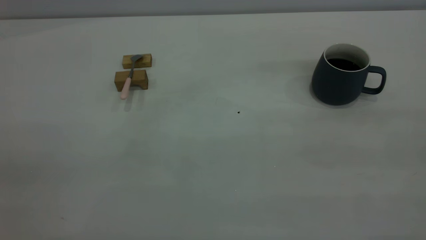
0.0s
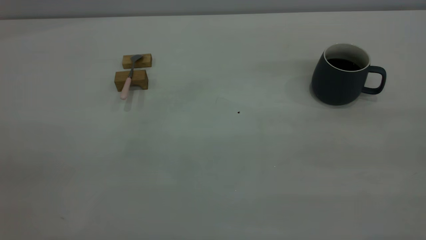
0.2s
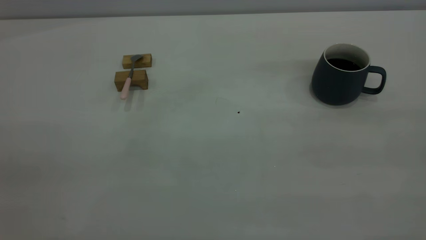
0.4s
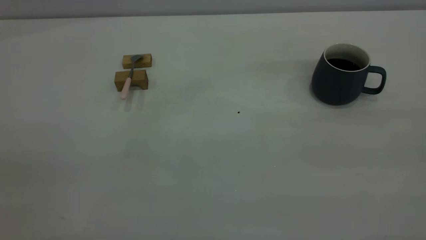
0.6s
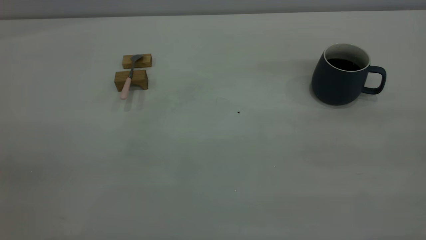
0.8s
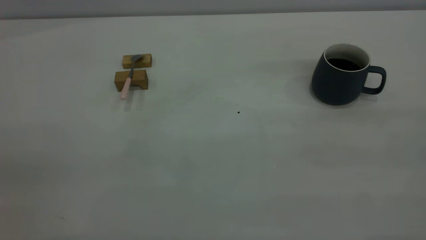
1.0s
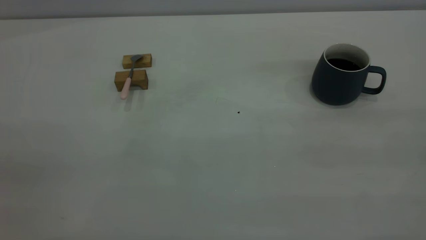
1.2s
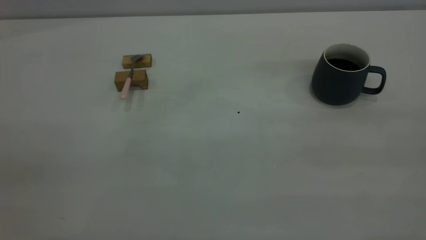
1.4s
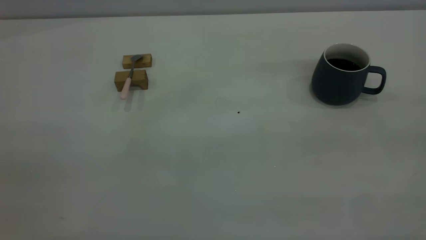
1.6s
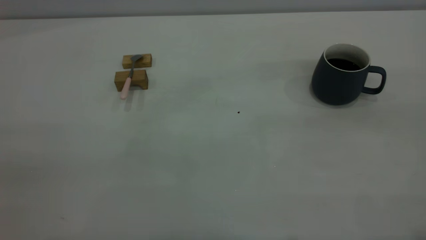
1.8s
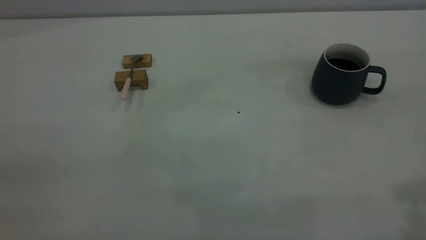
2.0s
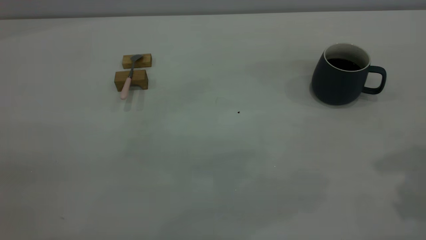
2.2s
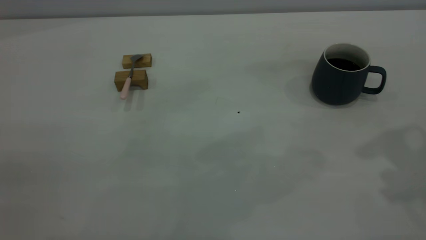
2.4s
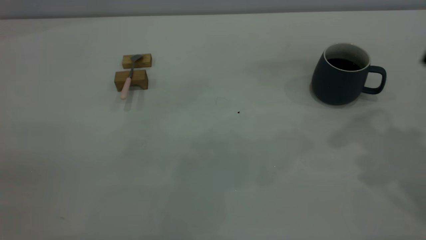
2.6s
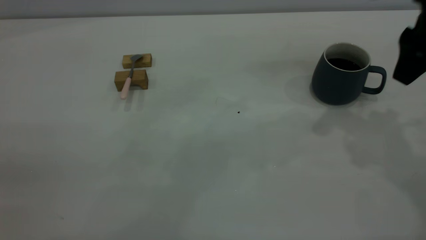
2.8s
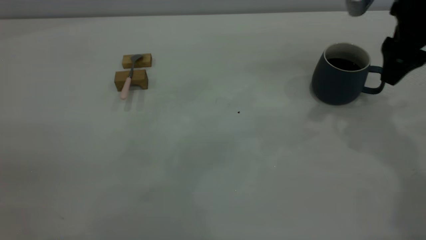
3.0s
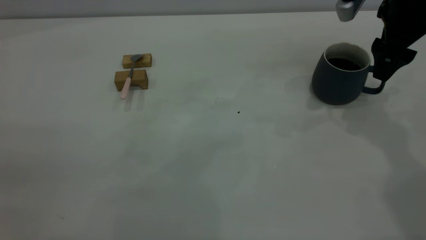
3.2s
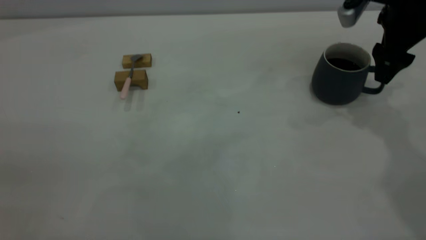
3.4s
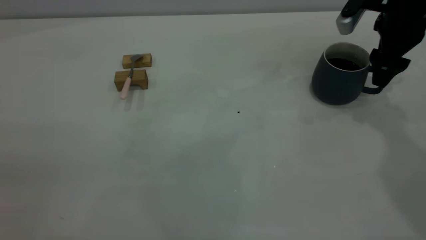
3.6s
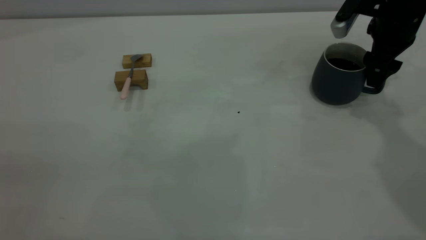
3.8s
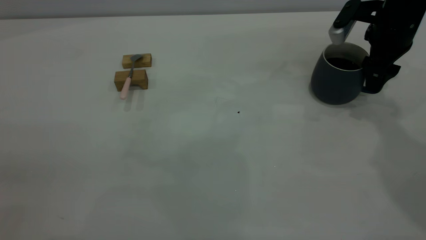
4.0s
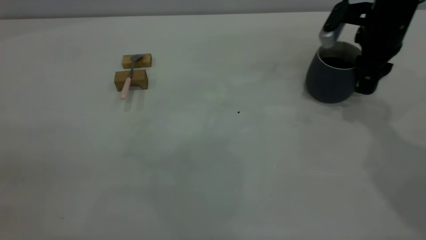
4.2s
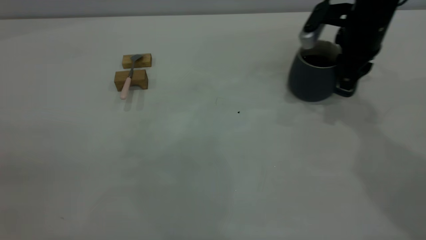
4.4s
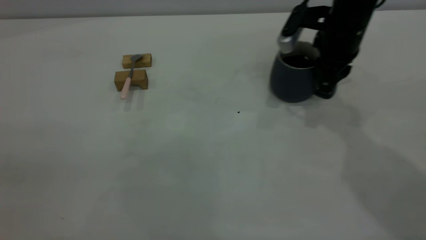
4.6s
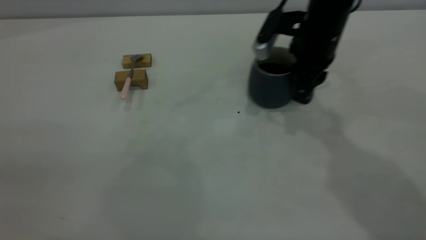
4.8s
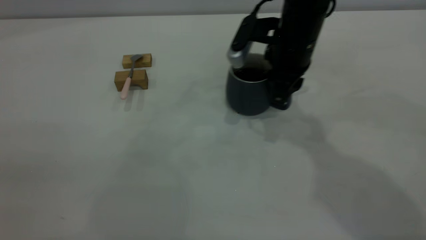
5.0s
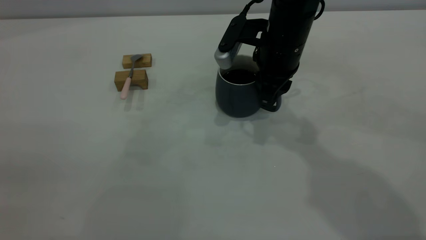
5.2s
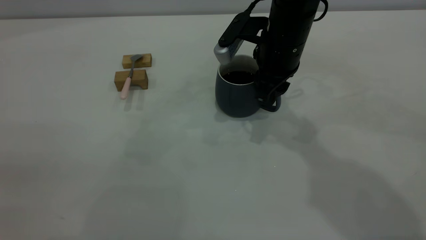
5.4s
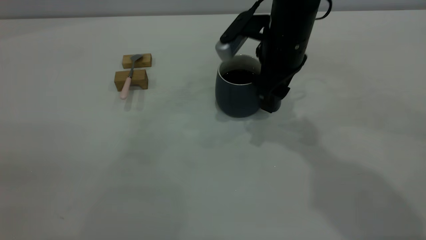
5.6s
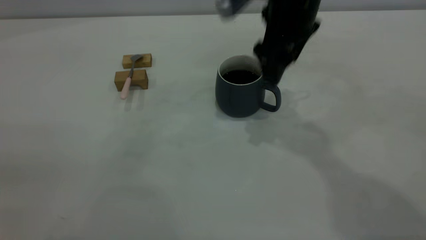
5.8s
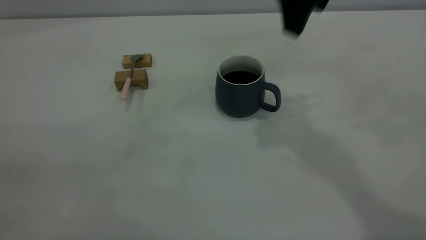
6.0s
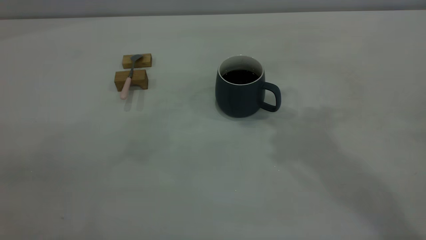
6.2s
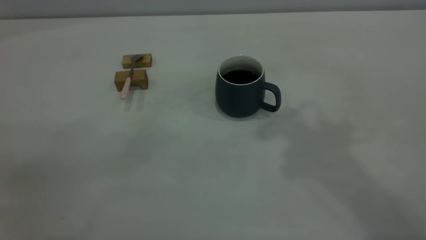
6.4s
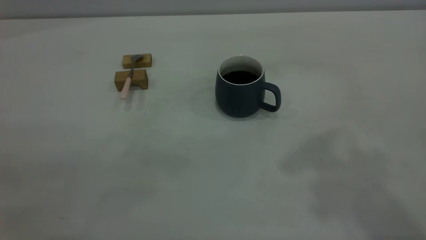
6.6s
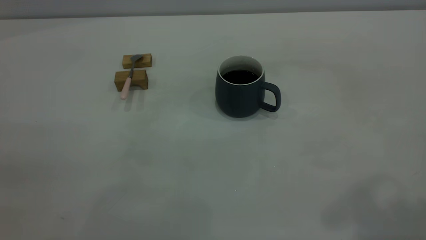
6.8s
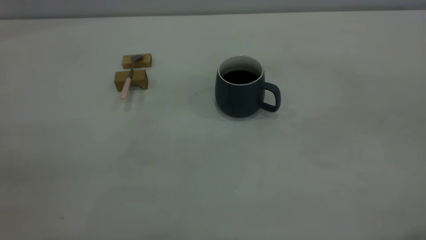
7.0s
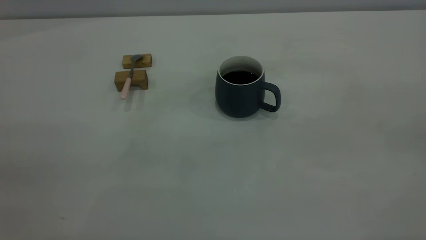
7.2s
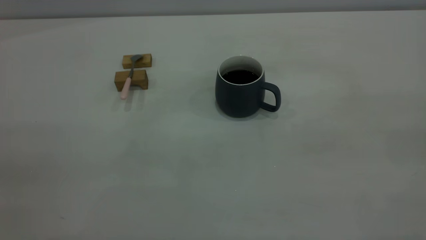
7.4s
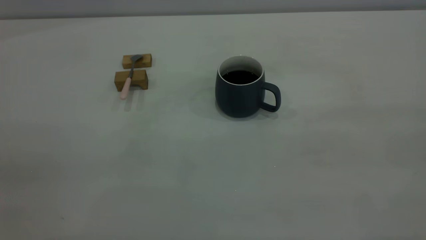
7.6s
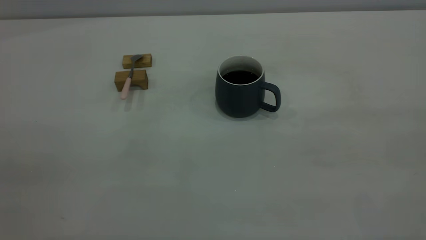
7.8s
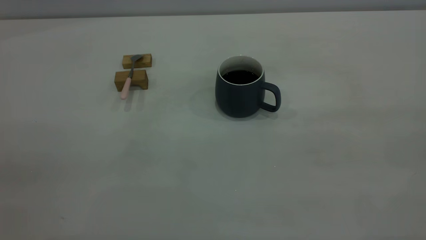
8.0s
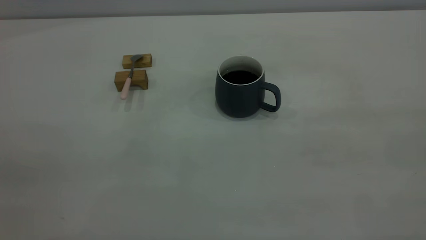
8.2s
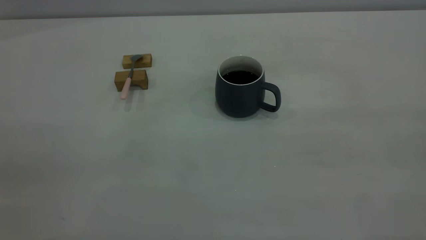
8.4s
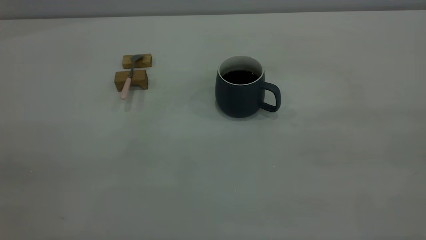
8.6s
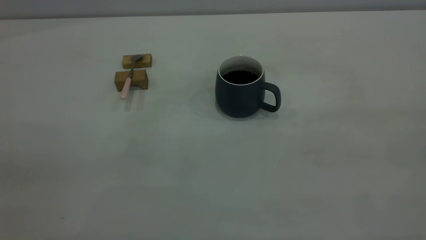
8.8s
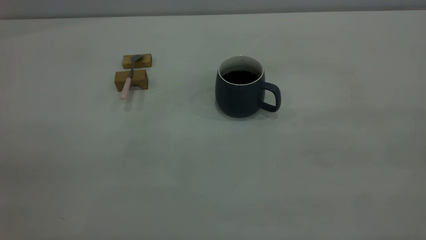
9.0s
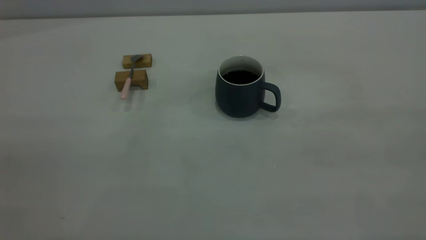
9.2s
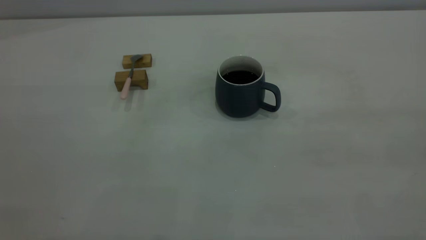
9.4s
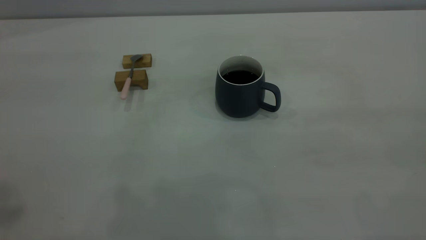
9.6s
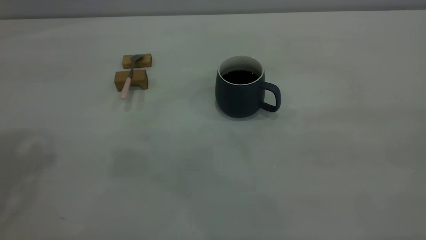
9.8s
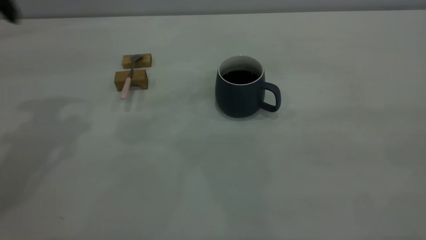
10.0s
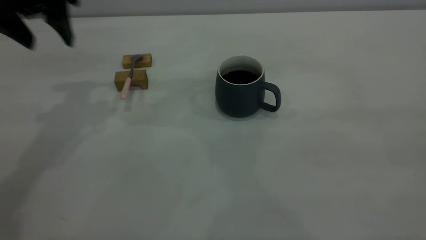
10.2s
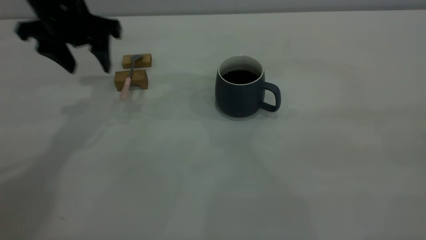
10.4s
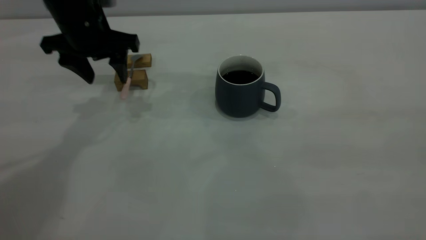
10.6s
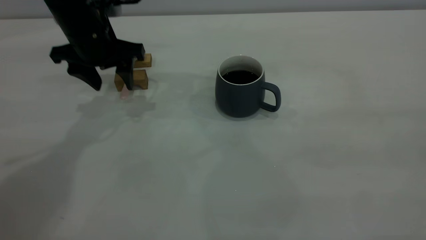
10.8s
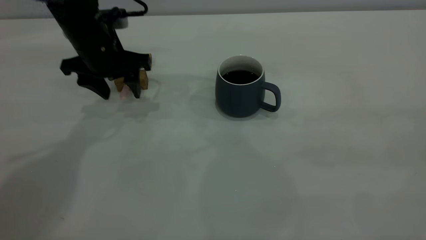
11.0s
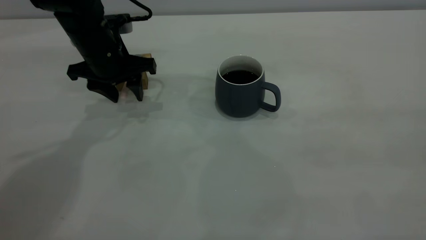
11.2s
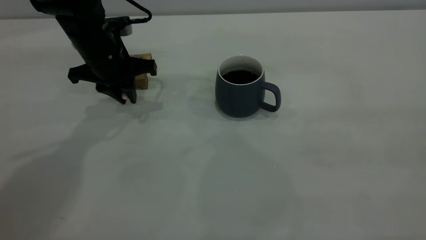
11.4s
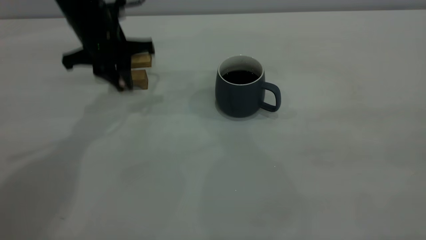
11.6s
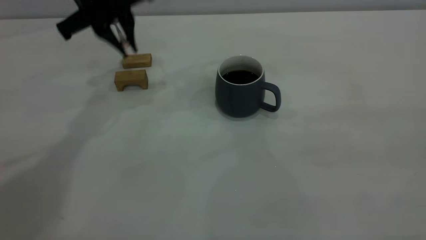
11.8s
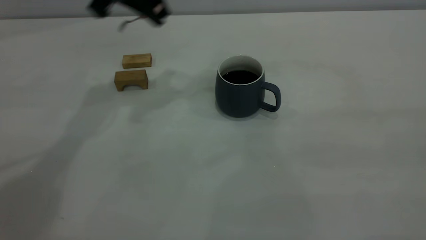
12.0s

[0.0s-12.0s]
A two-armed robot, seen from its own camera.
Step, 0.0s to 5.8s: Move the cup with coffee to the center of view.
Step, 6.0s to 11.6s: Pick up the spoon.
1.6s to 3.0s: The right gripper shifts roughly 40 cm forward and downward, and opens its fingers.
3.0s to 4.4s: The right gripper travels downward and forward by roughly 10 cm, and closes its fingers.
4.4s to 6.0s: The right gripper heads upward, to the left and backward, covering about 25 cm, and opens.
6.0s to 7.6s: The right gripper heads backward and to the right, covering about 40 cm.
9.0s to 10.4s: The left gripper is displaced forward and downward by approximately 40 cm, and opens.
10.4s to 12.0s: The left gripper heads upward and to the right, covering roughly 10 cm, and closes up.

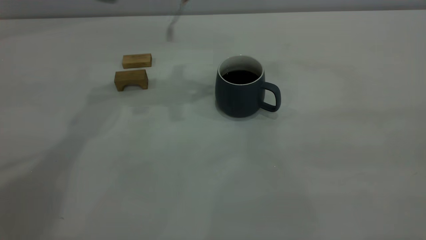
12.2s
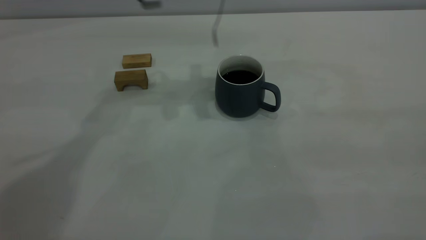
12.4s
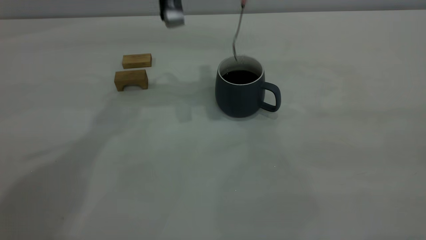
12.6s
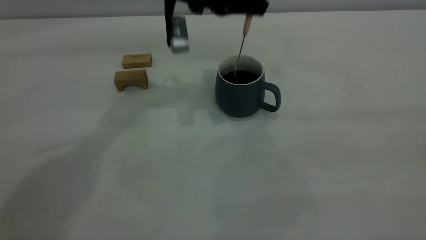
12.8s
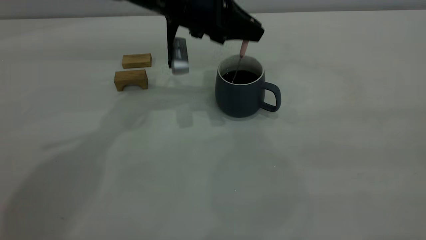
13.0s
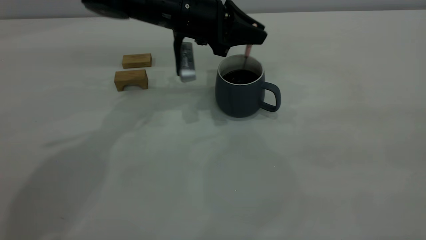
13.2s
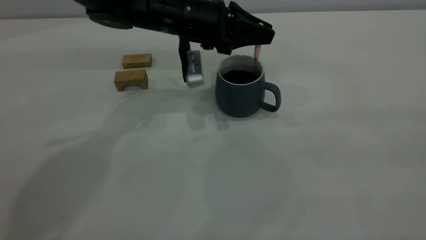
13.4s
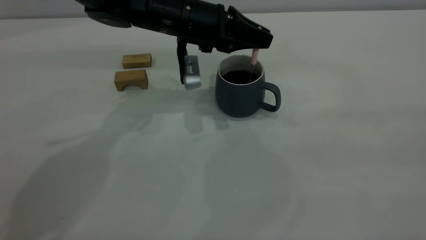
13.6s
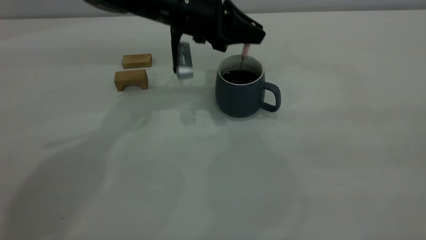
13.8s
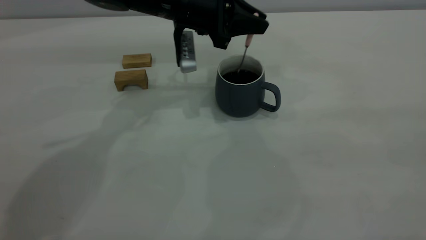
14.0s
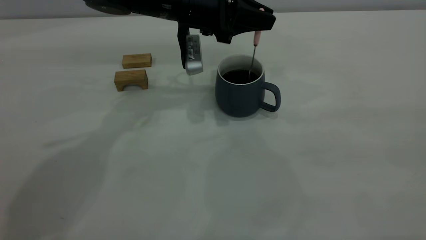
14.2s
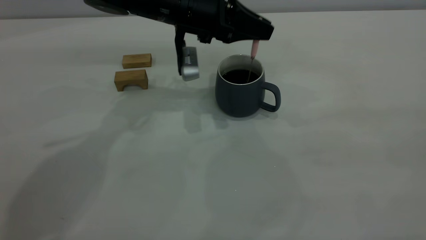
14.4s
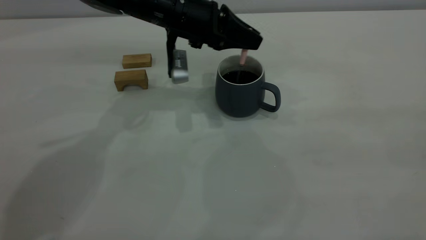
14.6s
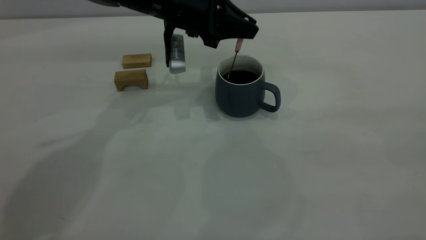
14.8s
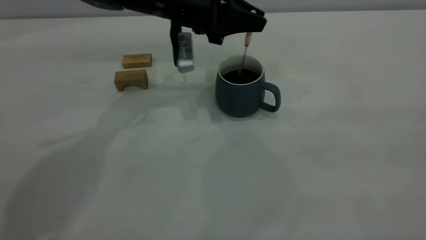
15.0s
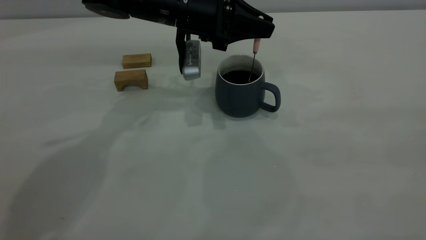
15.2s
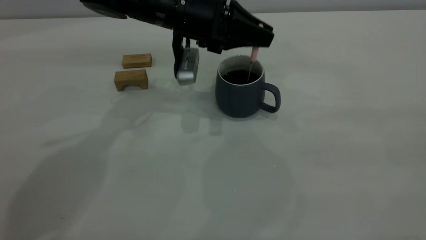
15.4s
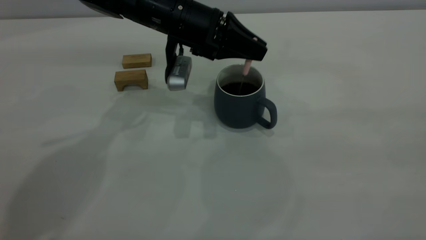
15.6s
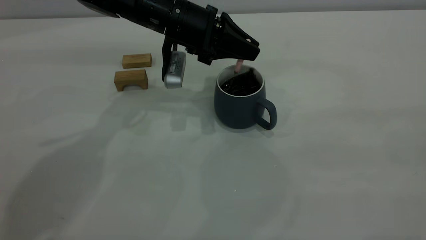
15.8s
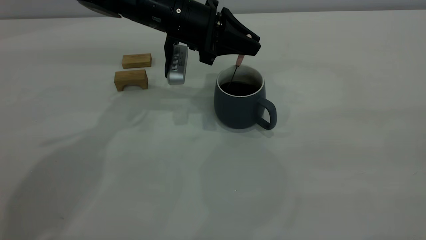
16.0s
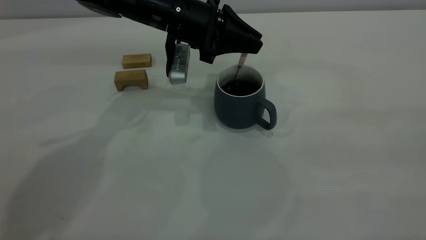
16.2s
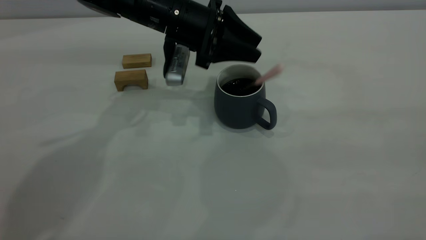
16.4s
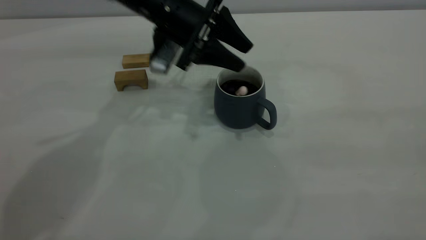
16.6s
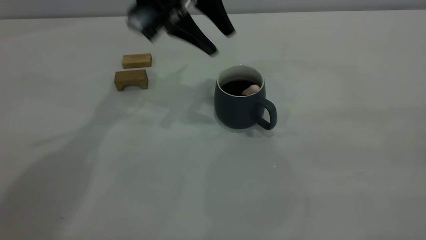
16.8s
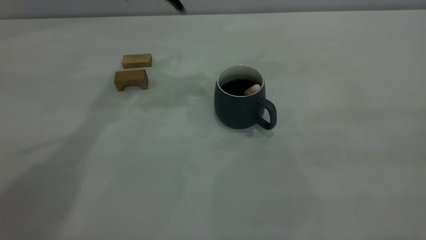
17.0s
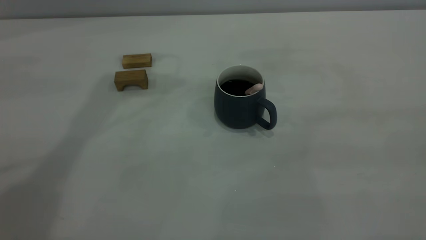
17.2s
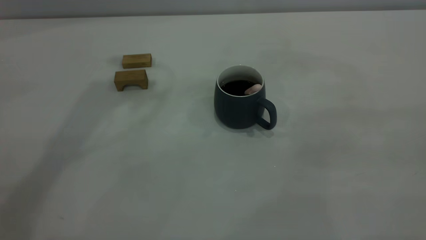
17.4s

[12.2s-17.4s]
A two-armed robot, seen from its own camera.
Step, 12.2s to 16.6s: Stir the coffee in the cup.
12.2s to 14.0s: The left gripper travels downward by about 10 cm.
14.0s to 15.6s: There are only small adjustments of the grippers.
15.6s to 17.4s: The left gripper travels upward by about 30 cm, and opens its fingers.
